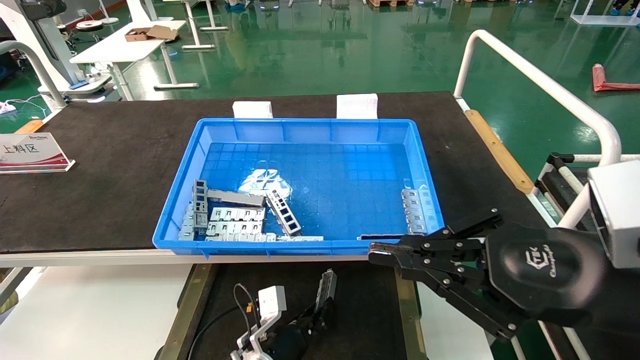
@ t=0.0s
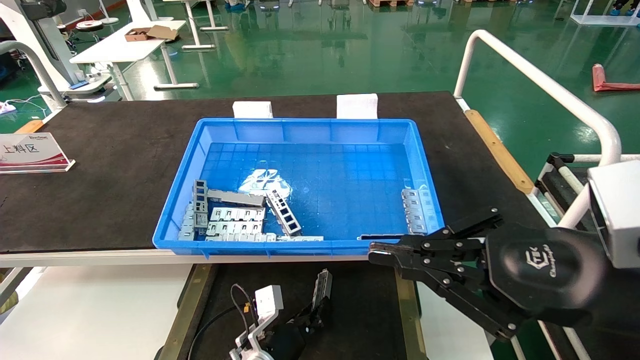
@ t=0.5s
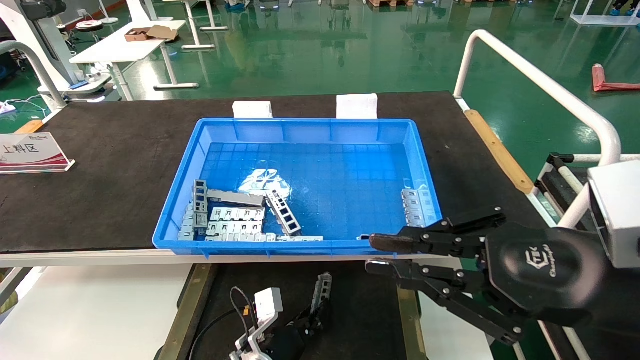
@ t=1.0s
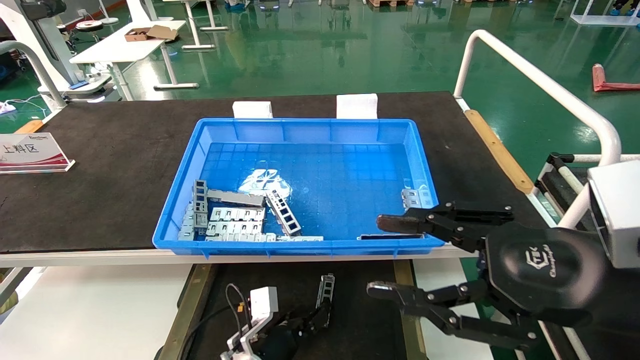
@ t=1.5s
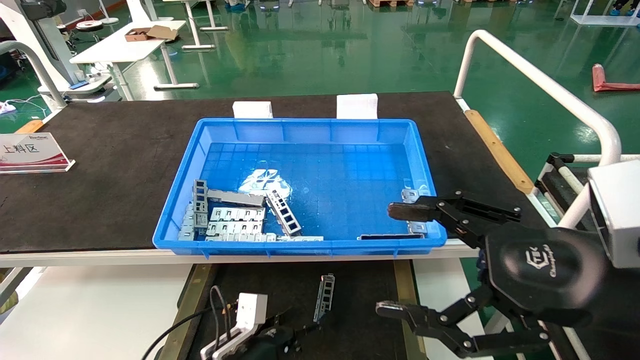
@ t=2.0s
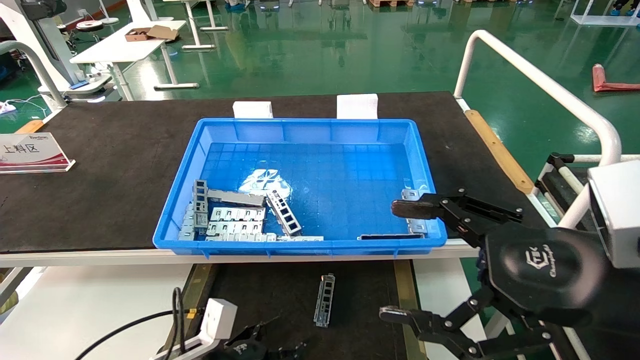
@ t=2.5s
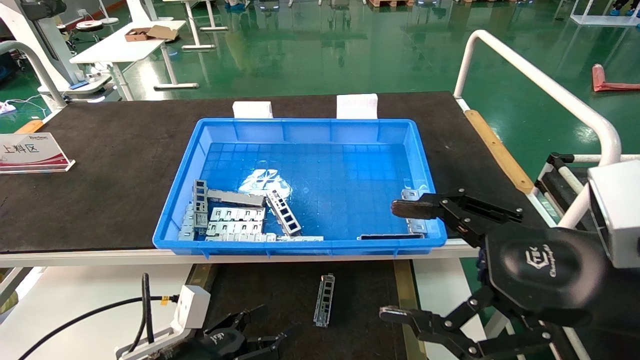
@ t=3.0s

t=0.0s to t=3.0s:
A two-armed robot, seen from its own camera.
Task of the whole recording: Grasp the part with one hand and place it on the black container.
t=0.0s to t=1.5s: The right gripper opens up, while the left gripper opens its fingers.
t=1.5s to t=3.0s: The right gripper opens up. Meanwhile the left gripper heads to the left, backward and upward, covering about 20 cm, and opens.
